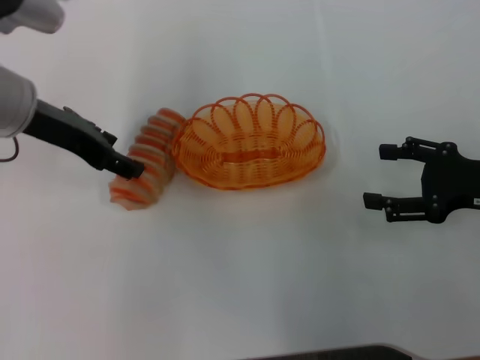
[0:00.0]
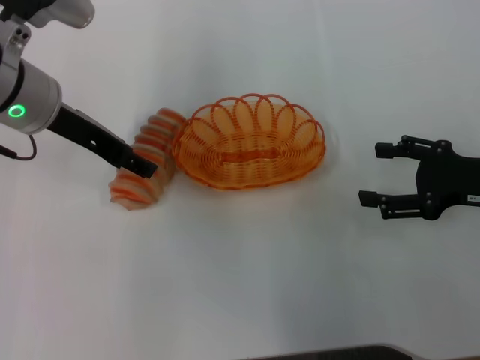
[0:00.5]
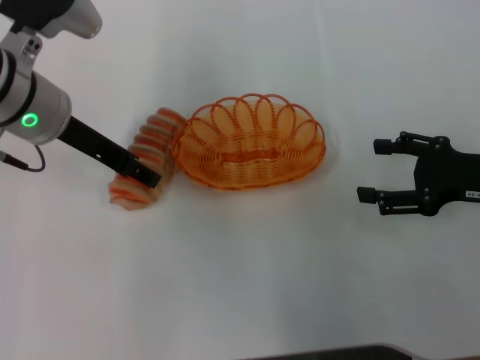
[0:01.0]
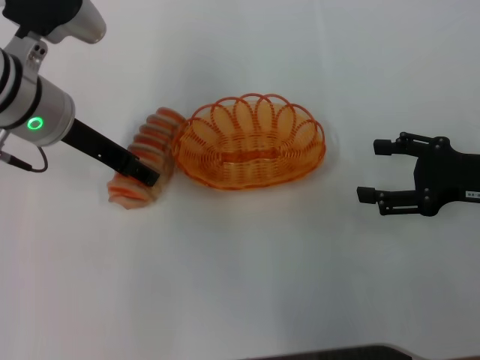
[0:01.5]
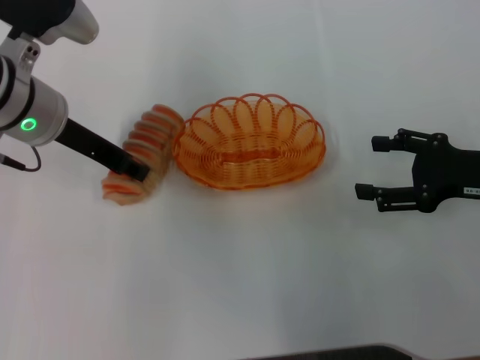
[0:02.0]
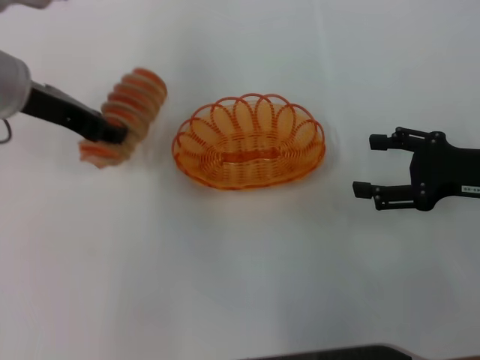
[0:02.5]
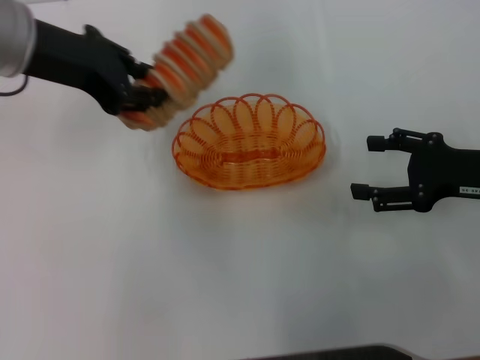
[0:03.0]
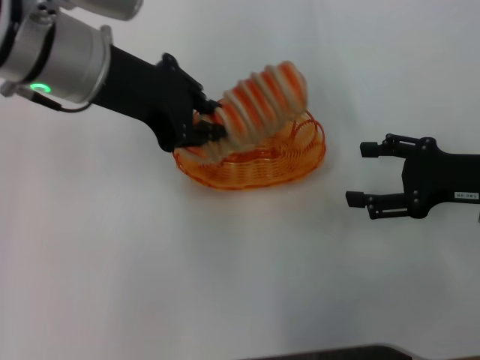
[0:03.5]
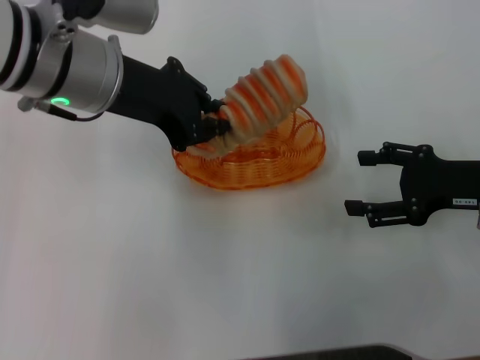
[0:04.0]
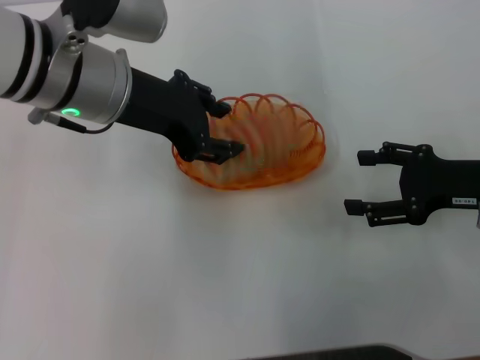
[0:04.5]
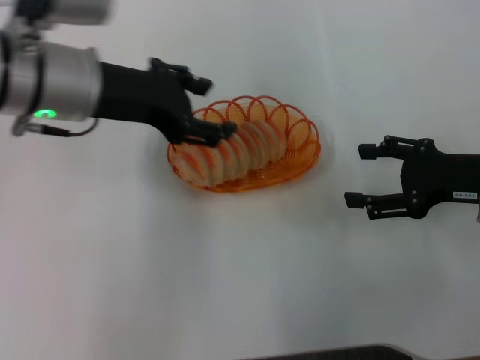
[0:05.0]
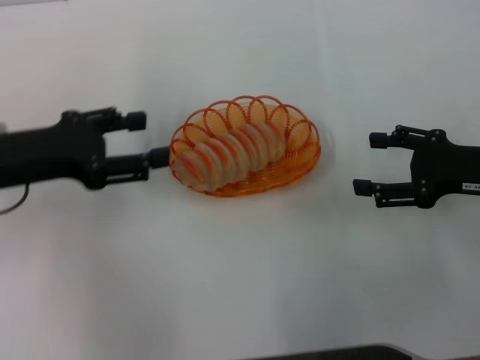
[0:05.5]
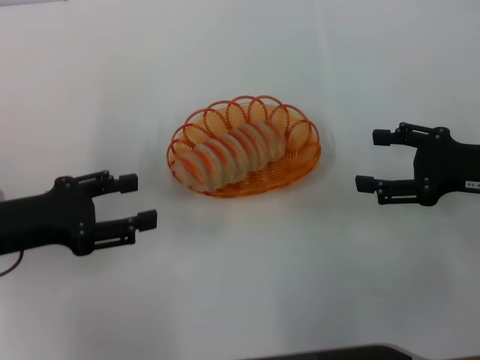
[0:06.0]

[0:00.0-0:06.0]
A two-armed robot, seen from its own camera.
Step, 0:00.0 to 0:02.0: Pick up the long bread with the left gripper.
Step, 0:03.0 to 0:04.5: Place the long bread into the basket with the left gripper.
0:00.0 to 0:02.0: The left gripper closes up.
0:02.0 to 0:04.0: The left gripper travels upward and to the right by roughly 10 cm, and closes its fingers.
0:04.0 to 0:06.0: The left gripper heads to the left, downward and backward, covering approximately 20 cm, and opens.

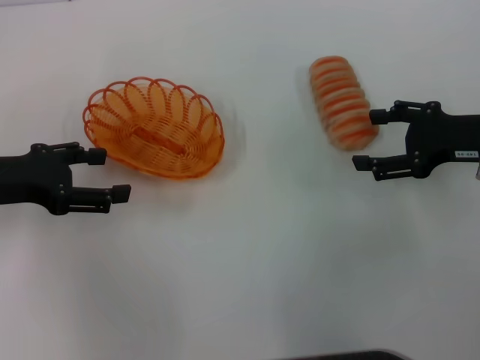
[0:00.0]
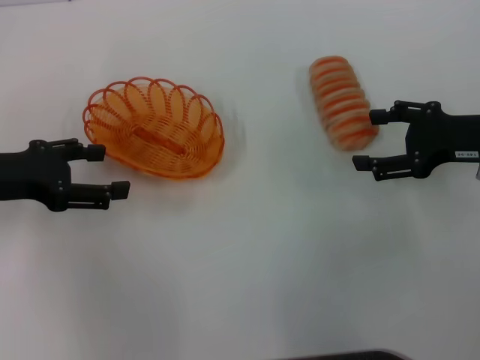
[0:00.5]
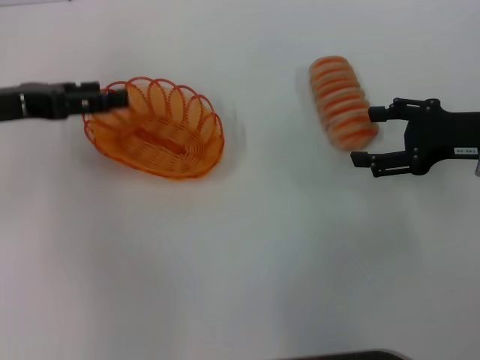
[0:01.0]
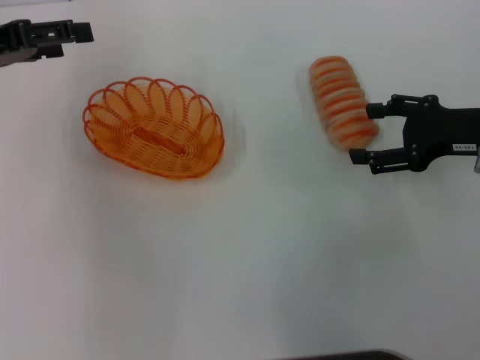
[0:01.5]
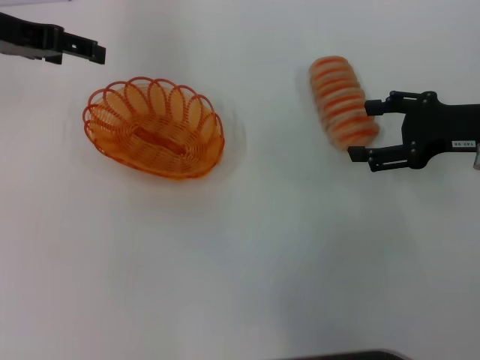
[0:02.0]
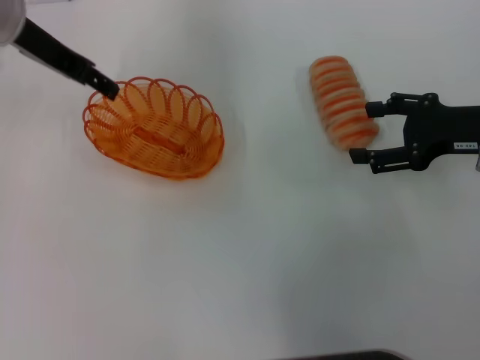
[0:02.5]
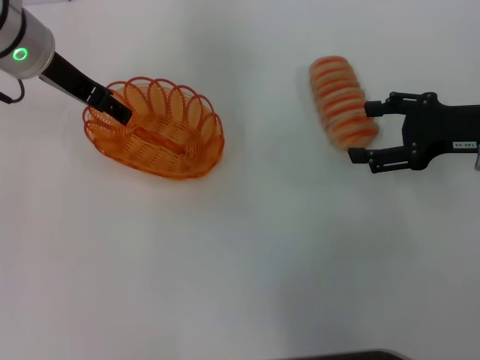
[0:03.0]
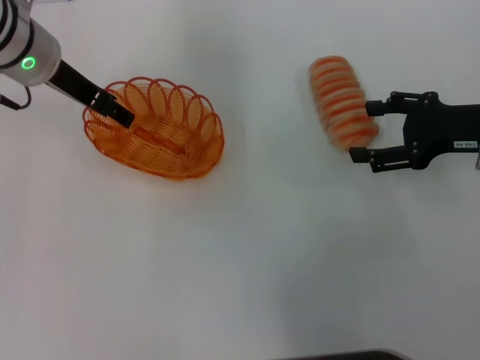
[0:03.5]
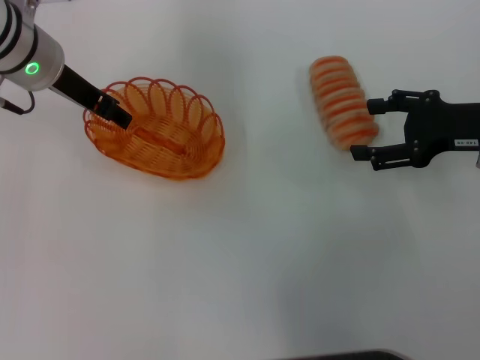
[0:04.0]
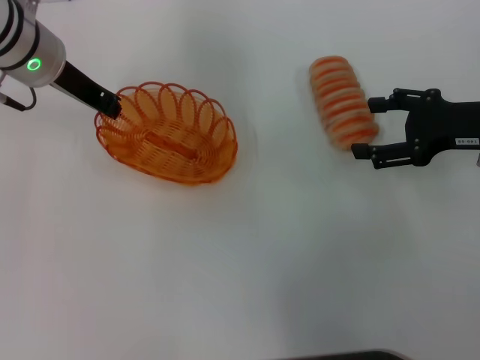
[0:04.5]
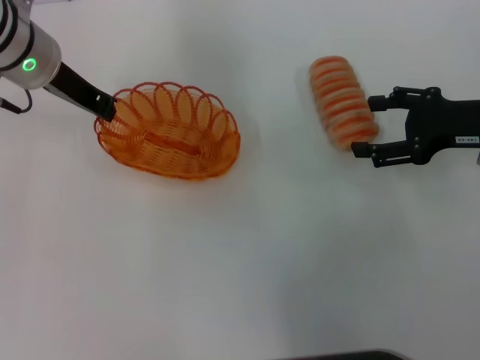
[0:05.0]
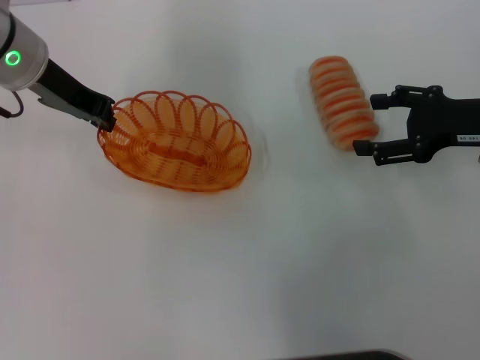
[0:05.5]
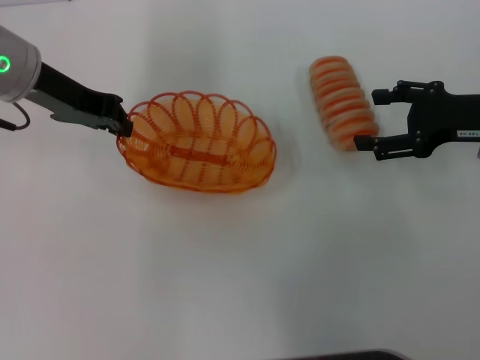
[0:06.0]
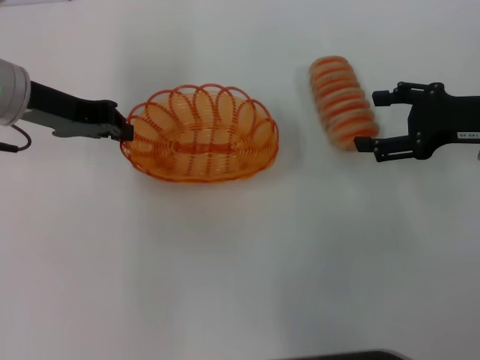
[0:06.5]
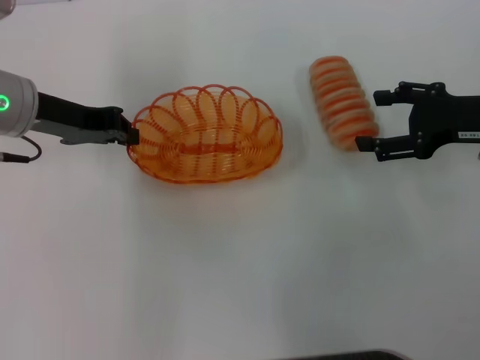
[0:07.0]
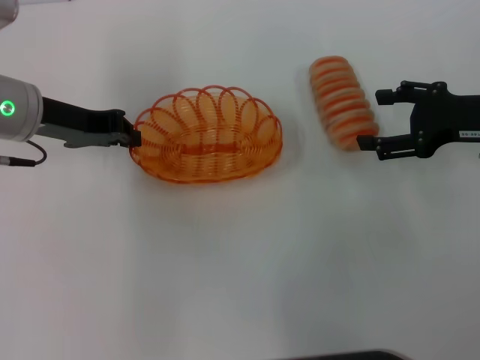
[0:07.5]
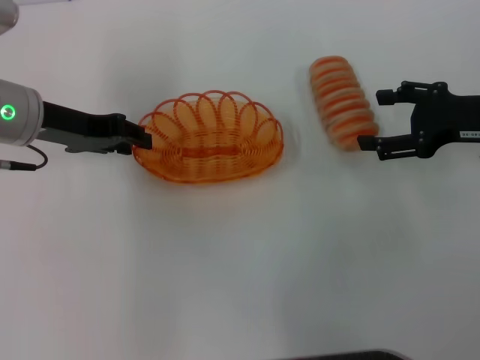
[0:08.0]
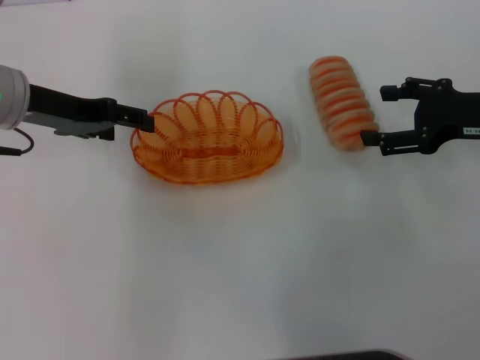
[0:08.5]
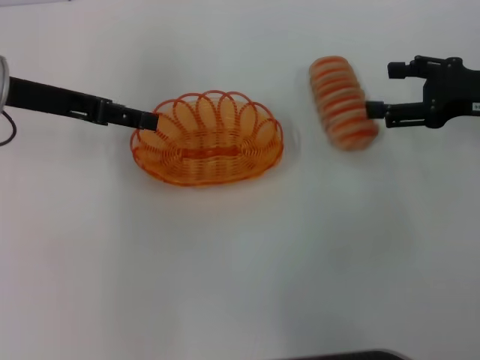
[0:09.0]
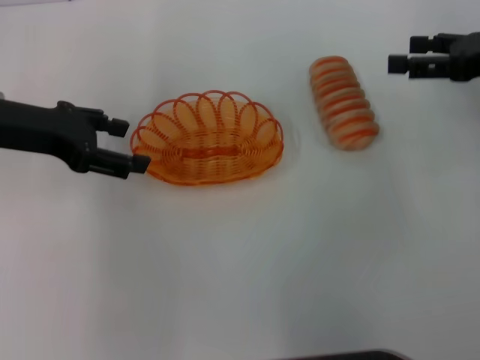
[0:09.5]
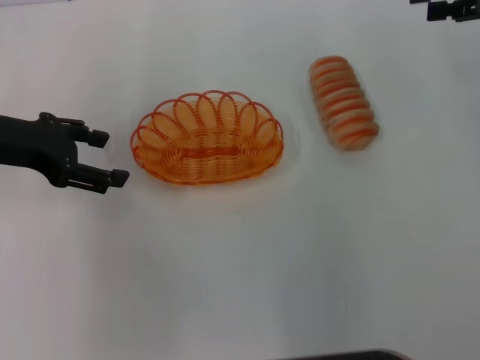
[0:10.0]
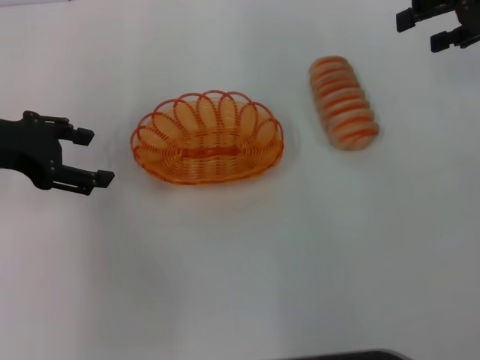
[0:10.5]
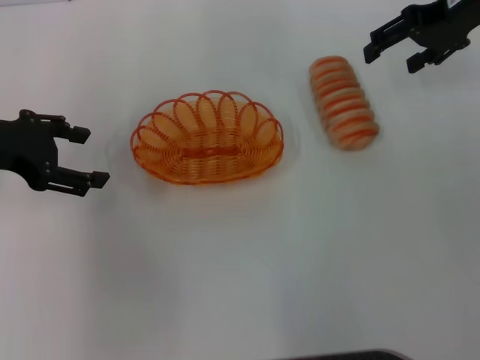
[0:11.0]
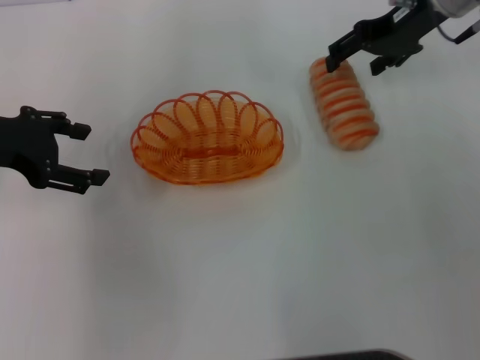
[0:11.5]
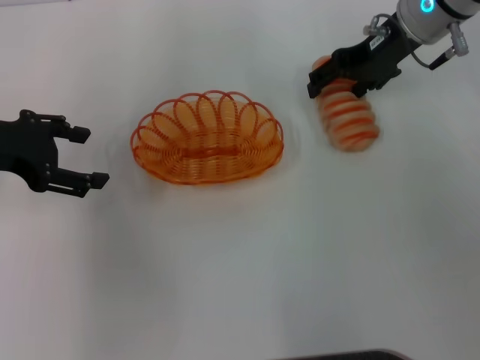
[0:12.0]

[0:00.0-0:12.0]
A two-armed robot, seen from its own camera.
Step, 0:00.0 to 0:05.5: Pick up the basket with the left gripper.
Step, 0:06.0 to 0:09.5: Place the basket in the center of view with the left gripper.
0:00.0 to 0:02.0: The left gripper goes some 15 cm forward and upward.
0:02.0 to 0:04.0: The left gripper goes roughly 10 cm to the right.
0:04.0 to 0:06.0: The left gripper closes its fingers.
0:06.0 to 0:08.0: The left gripper ends up some 5 cm from where it was.
0:08.0 to 0:10.0: The left gripper moves approximately 5 cm, and opens up; the right gripper moves upward and forward, about 10 cm.
0:10.0 to 0:12.0: The right gripper shifts about 15 cm to the left and forward.

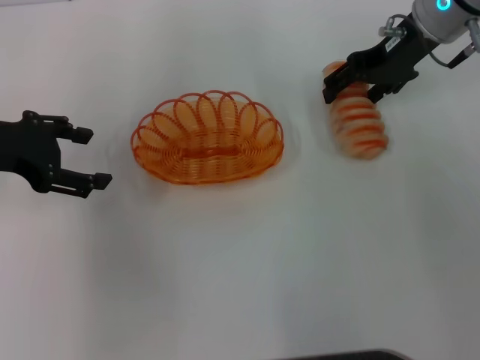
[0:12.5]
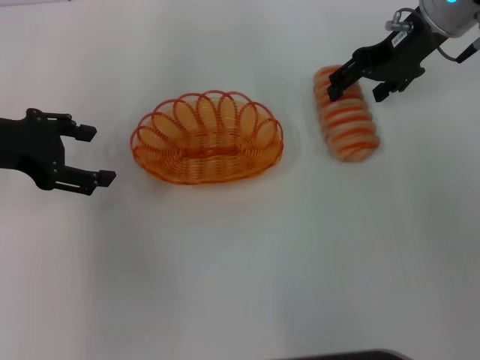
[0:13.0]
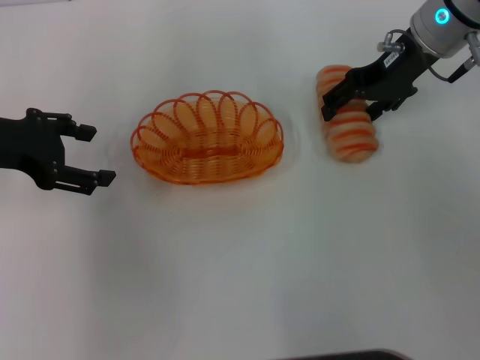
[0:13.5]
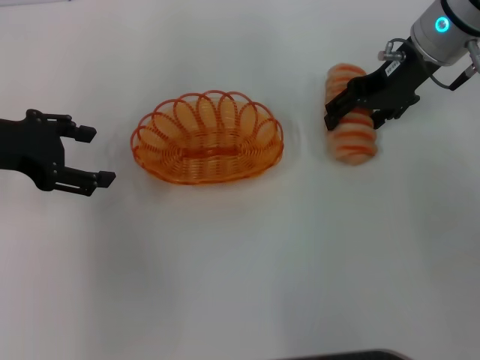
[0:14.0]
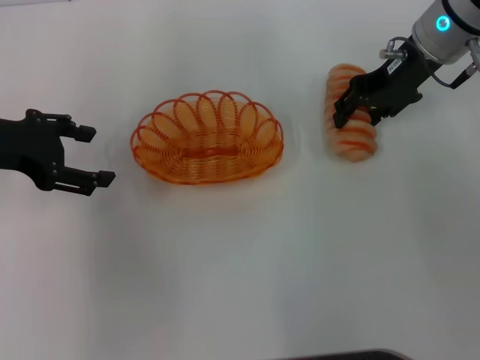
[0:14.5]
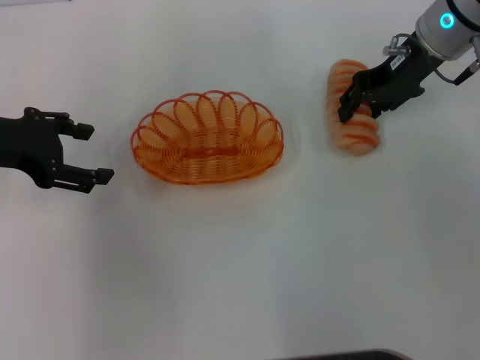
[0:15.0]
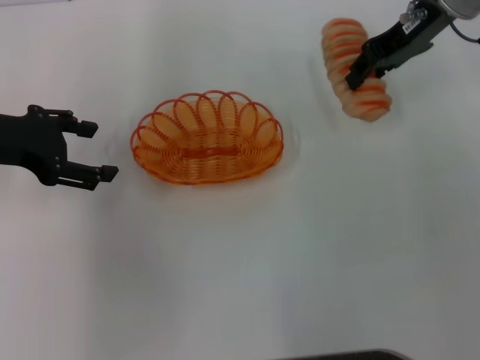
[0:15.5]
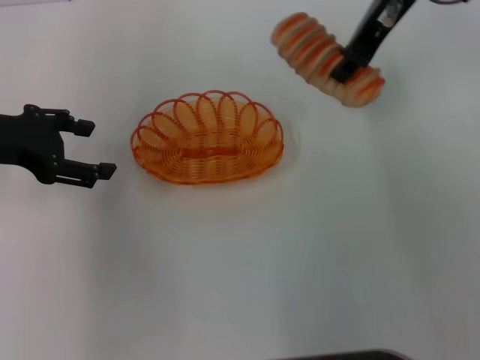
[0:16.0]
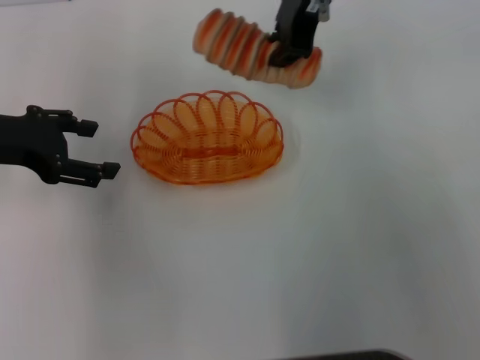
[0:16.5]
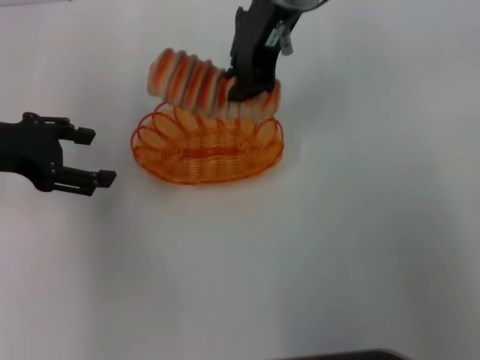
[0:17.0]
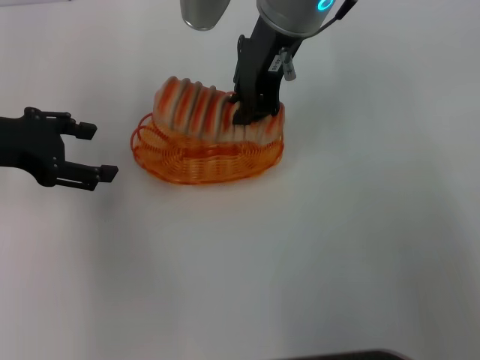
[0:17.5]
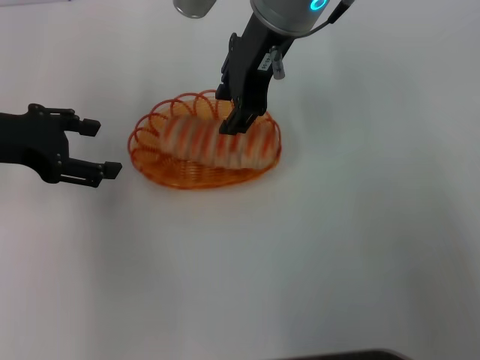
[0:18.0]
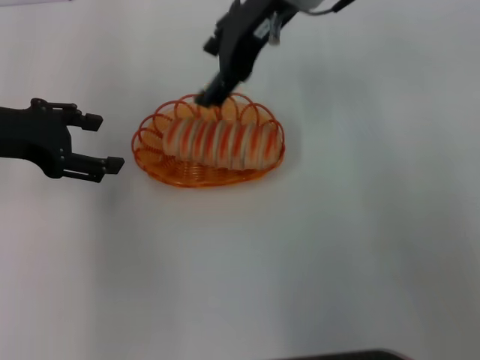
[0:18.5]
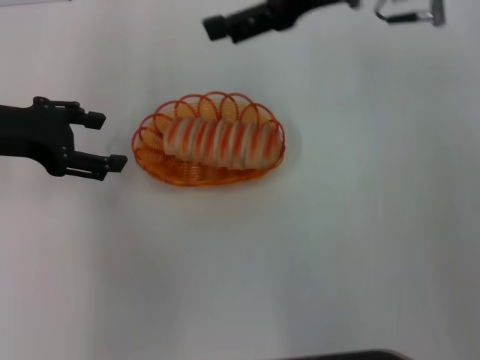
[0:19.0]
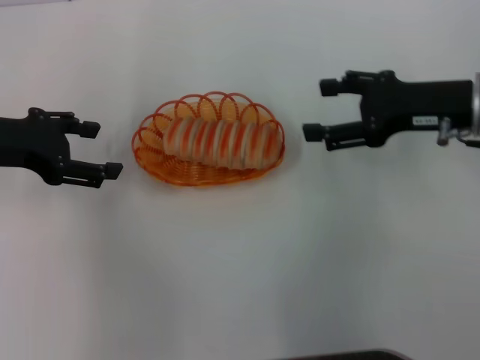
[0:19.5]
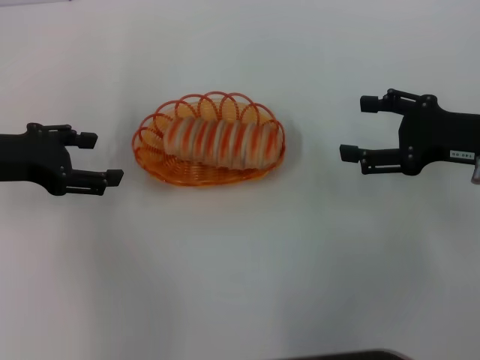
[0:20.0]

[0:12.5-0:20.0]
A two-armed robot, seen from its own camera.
Step, 0:12.5 to 0:15.0: Pick up the long bread with the right gripper.
Step, 0:15.5 to 0:18.0: Place the long bread into the basket with the right gripper.
0:12.5 to 0:14.5: The right gripper closes its fingers.
0:14.5 to 0:16.5: The right gripper travels to the left and upward by some 15 cm, and closes up.
0:16.5 to 0:18.0: The right gripper ends up approximately 5 cm from where it was.
0:18.0 to 0:20.0: The right gripper shifts approximately 30 cm to the right, downward and backward, and opens its fingers.
